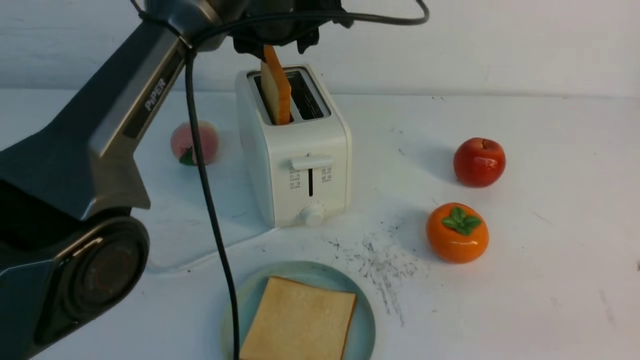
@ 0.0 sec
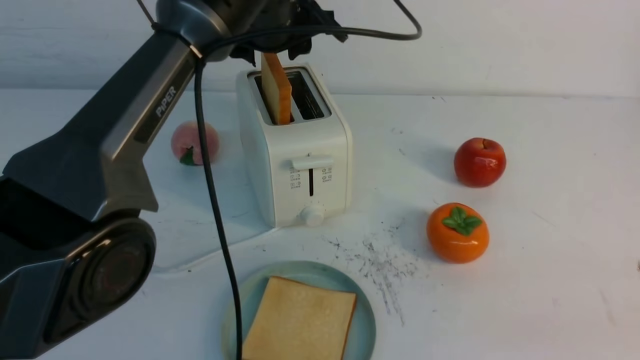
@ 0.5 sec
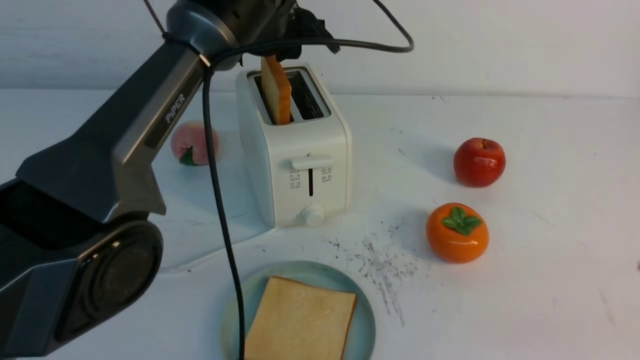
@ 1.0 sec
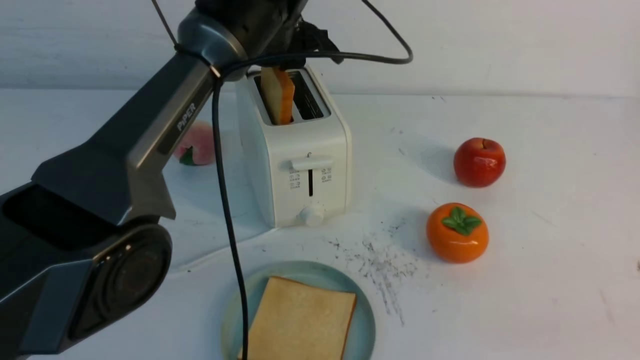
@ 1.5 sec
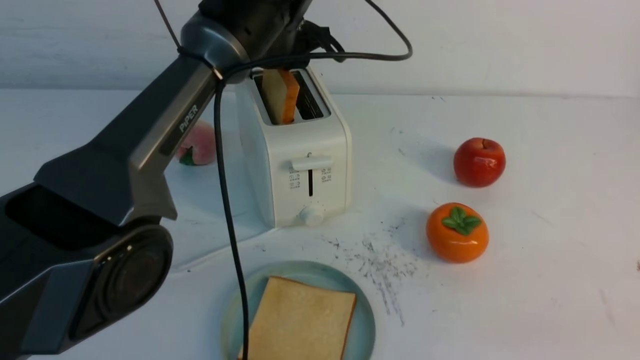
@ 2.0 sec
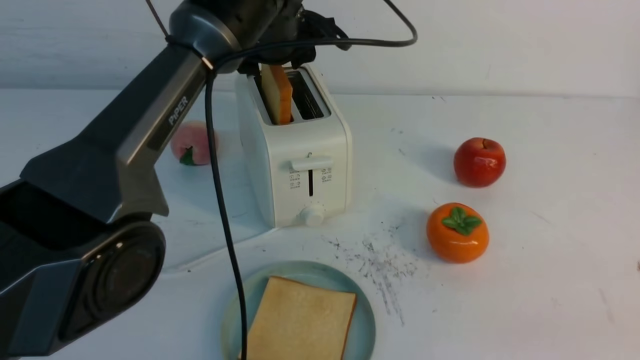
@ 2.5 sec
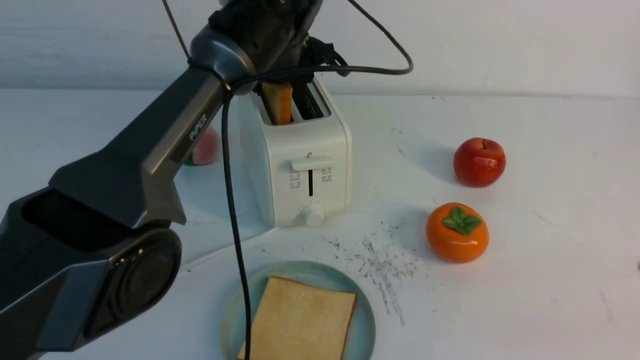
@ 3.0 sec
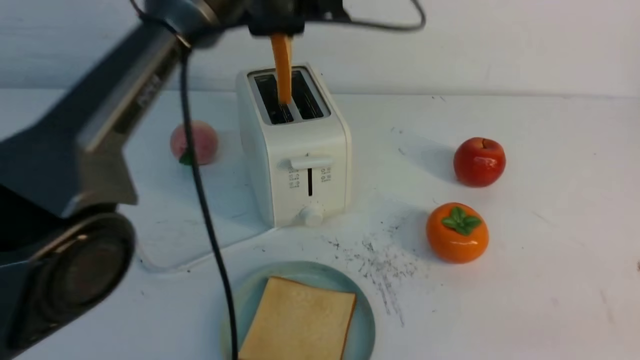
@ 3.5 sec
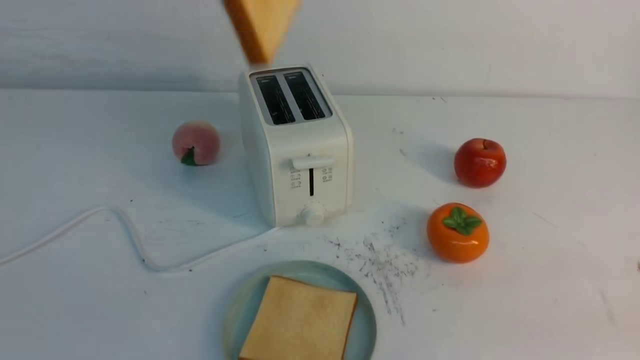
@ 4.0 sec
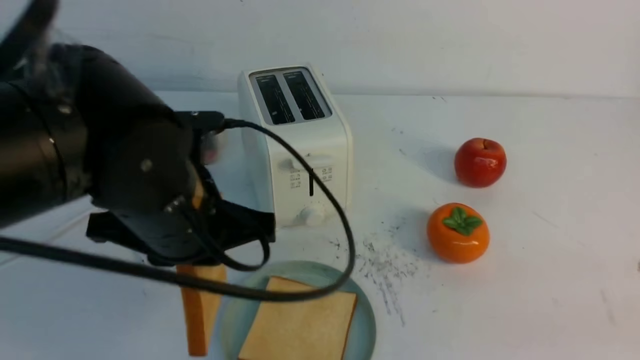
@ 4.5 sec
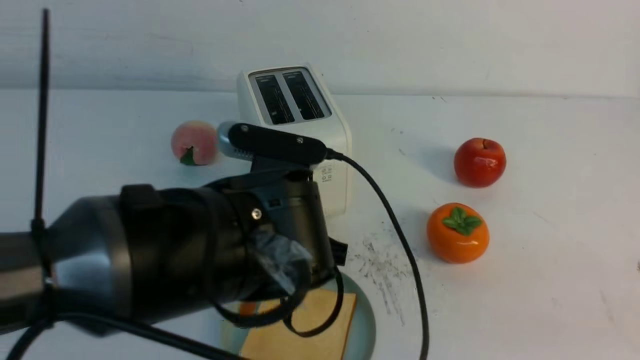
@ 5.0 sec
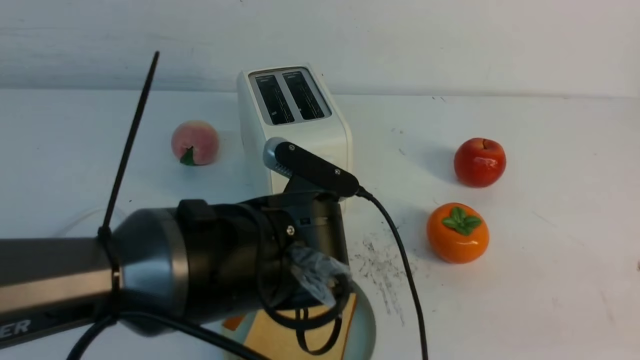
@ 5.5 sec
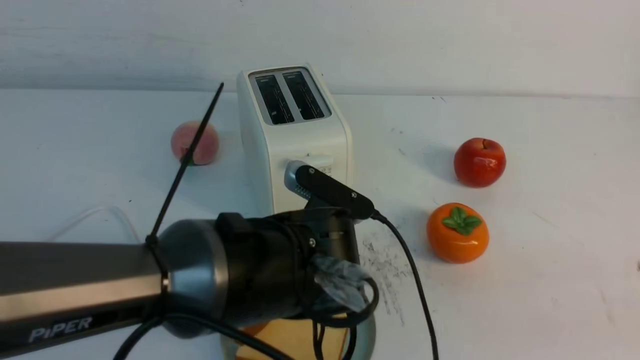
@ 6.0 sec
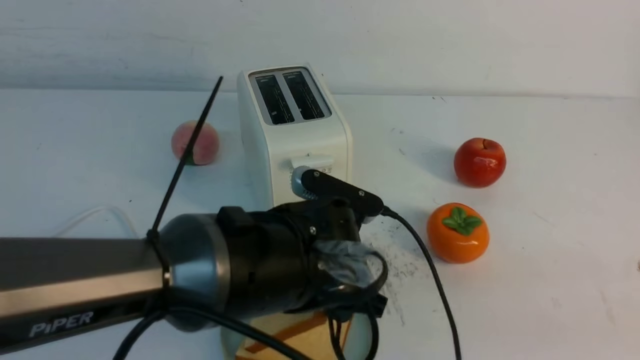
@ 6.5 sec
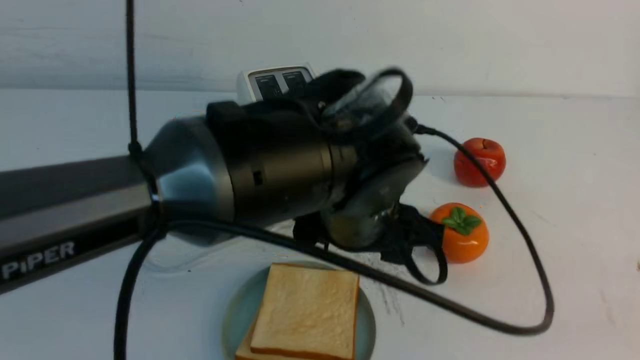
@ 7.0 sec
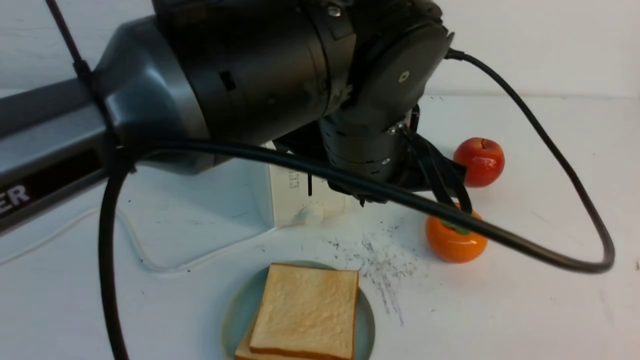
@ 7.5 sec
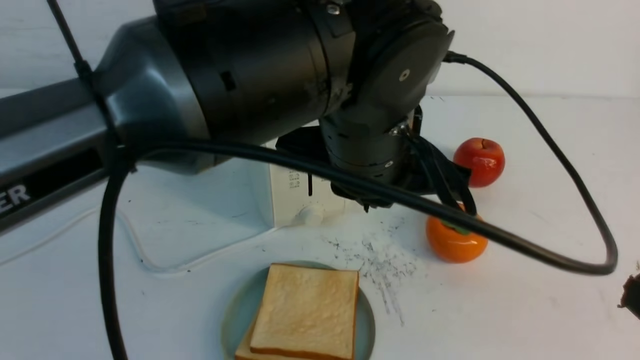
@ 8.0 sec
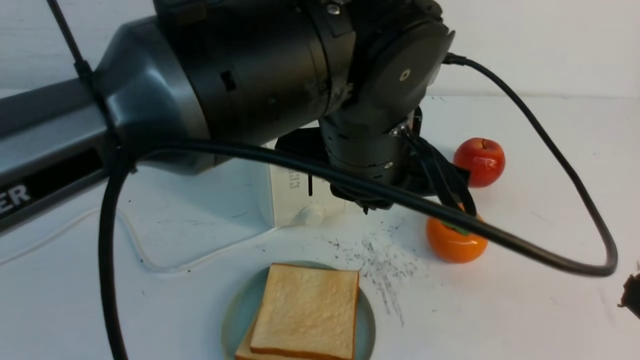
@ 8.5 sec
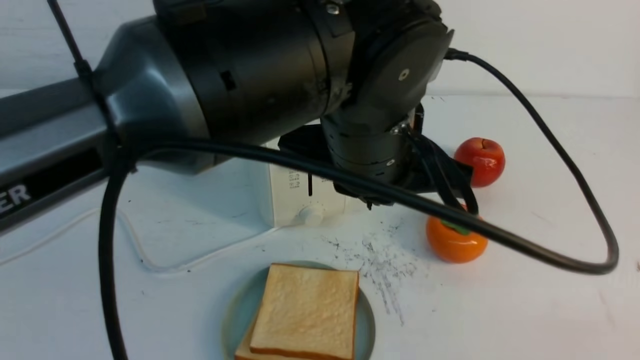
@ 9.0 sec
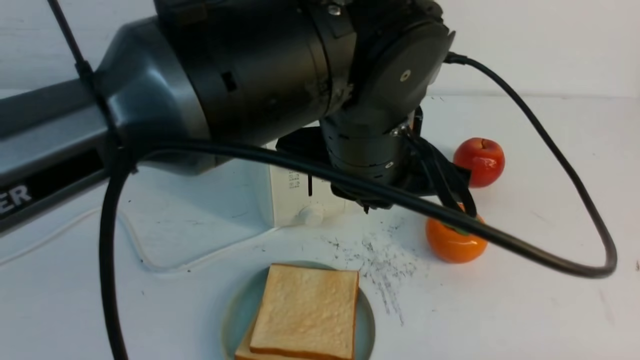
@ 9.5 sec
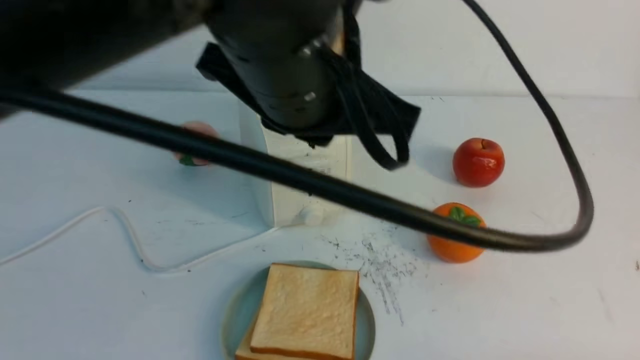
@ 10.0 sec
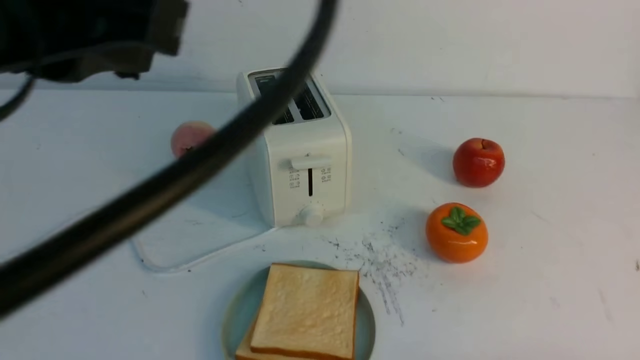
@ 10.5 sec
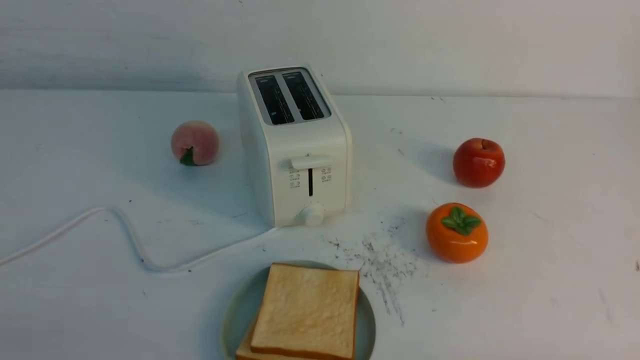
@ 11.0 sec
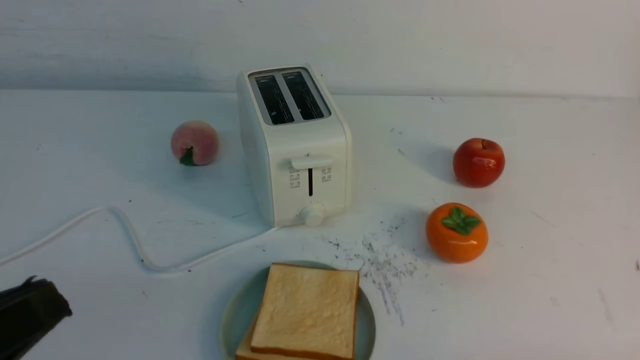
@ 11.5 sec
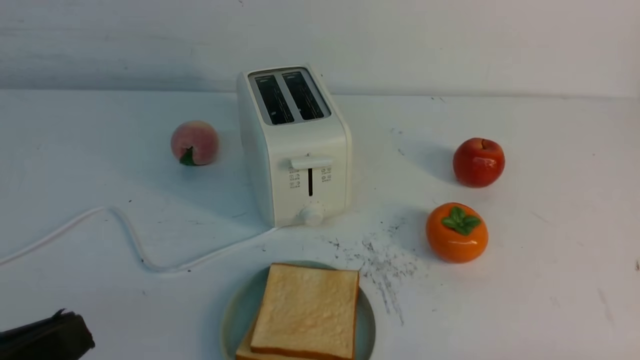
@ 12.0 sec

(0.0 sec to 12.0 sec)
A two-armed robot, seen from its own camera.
Task of the whole recording: take toasted bread from bread machine on white table place on plate.
Step, 0.0 sec - 3.0 sec: use the left arm to take out a slice of bread.
Step, 3.5 sec - 6.5 sec: use the left arm to put a slice of bread into the empty plate.
0.0 sec - 2.0 sec: The grippers stay close to where they were, moving slightly.
2.0 sec - 4.0 sec: The left gripper is displaced backward and upward by some 25 cm, and closes up.
4.0 sec - 6.0 sec: The left gripper moves downward, about 25 cm.
6.0 sec - 8.0 sec: The left gripper is displaced upward by about 15 cm, and closes its fingers.
8.0 sec - 10.0 sec: The left gripper goes about 10 cm upward and to the left. The right gripper is displaced downward by roughly 10 cm.
10.0 sec - 12.0 sec: The left gripper travels to the left, backward and downward by roughly 30 cm.

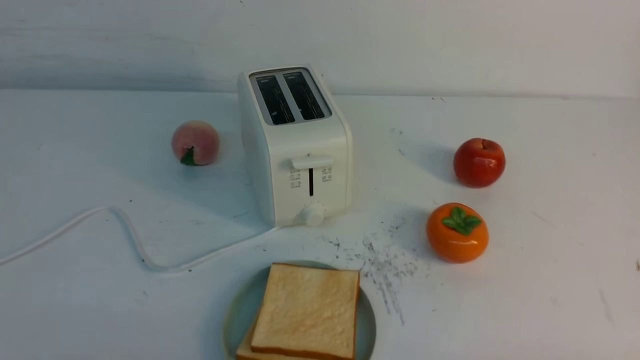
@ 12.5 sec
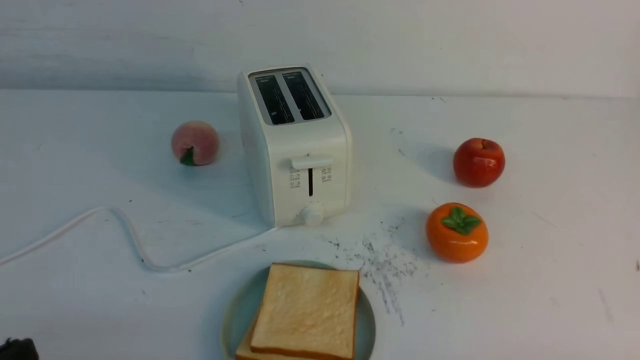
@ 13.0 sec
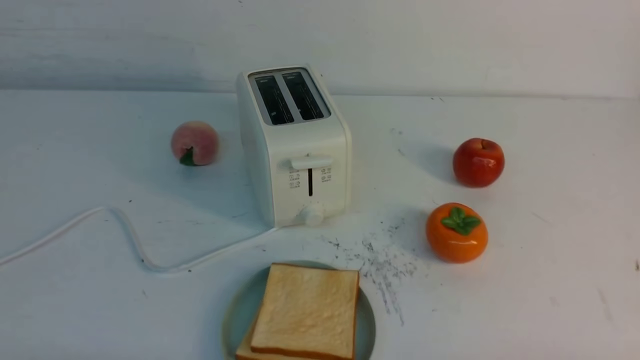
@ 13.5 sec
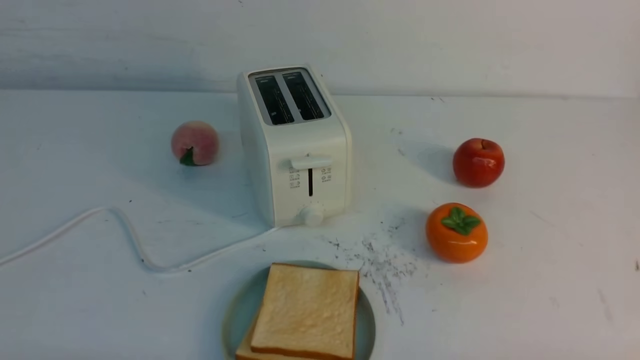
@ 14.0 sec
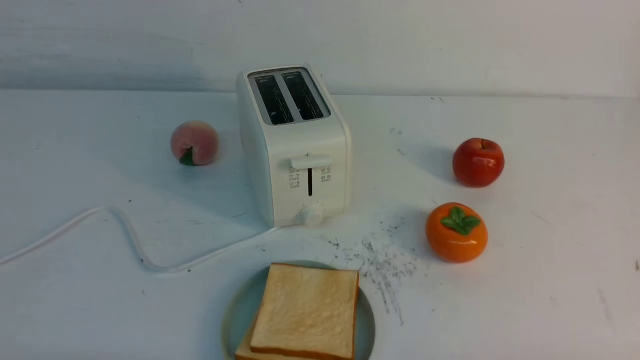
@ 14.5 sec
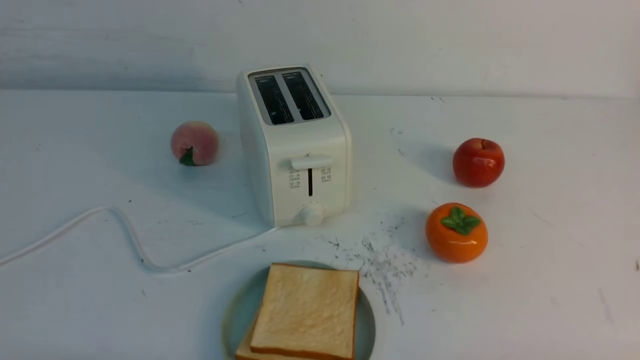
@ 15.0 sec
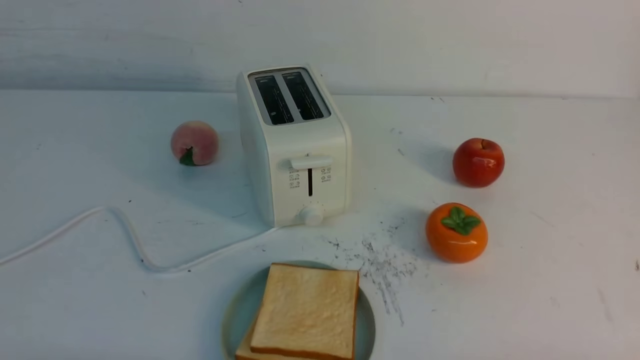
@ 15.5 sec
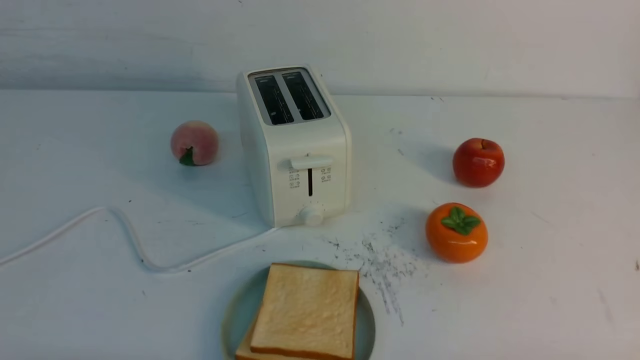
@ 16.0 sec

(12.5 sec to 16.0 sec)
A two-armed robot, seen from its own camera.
Task of the whole recording: take toasted bread from bread machine on white table place on plate.
14.5 sec - 16.0 sec: Neither gripper changes place.
